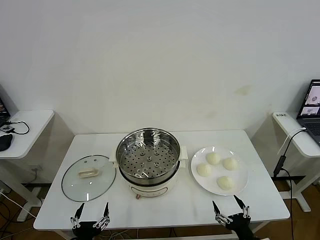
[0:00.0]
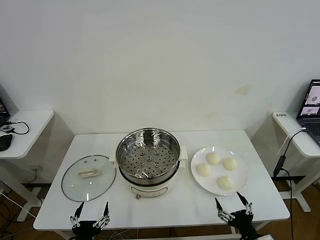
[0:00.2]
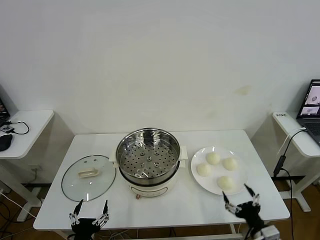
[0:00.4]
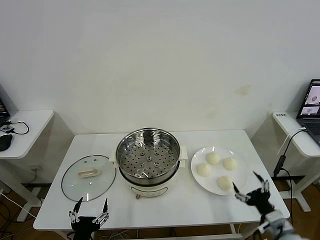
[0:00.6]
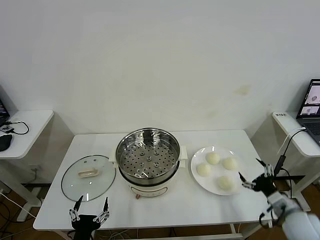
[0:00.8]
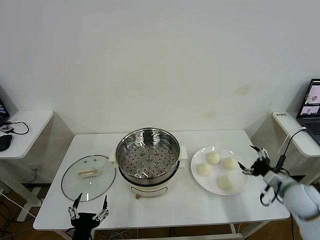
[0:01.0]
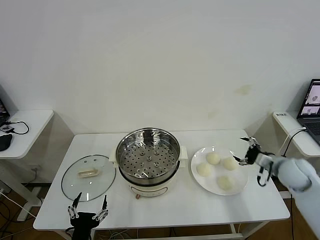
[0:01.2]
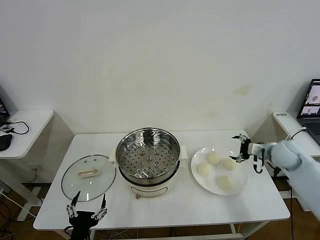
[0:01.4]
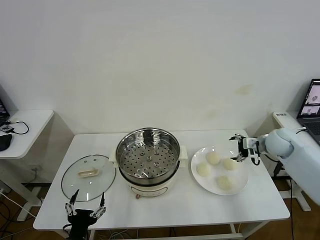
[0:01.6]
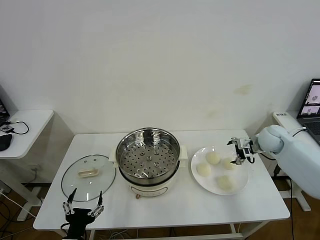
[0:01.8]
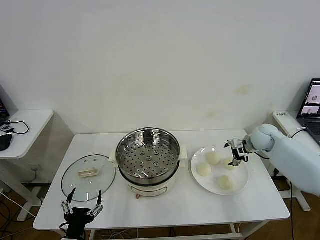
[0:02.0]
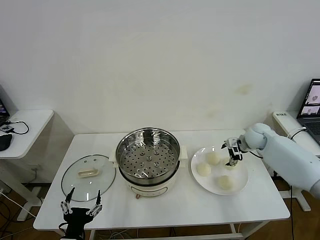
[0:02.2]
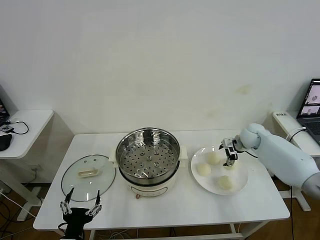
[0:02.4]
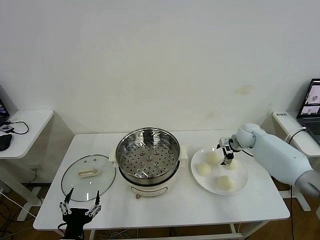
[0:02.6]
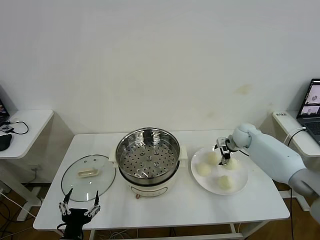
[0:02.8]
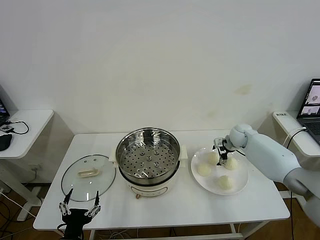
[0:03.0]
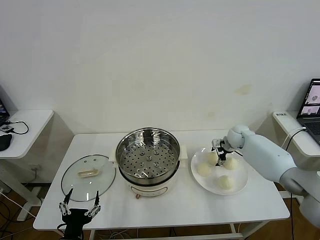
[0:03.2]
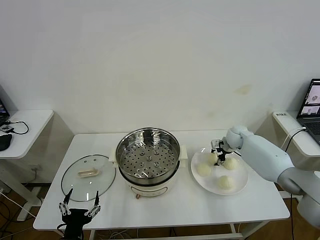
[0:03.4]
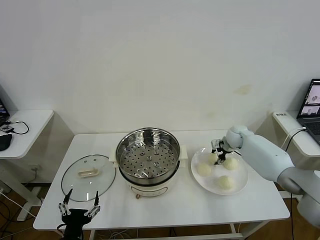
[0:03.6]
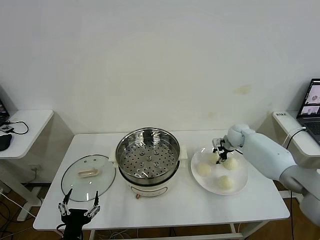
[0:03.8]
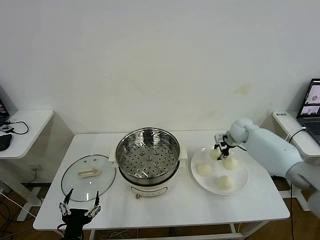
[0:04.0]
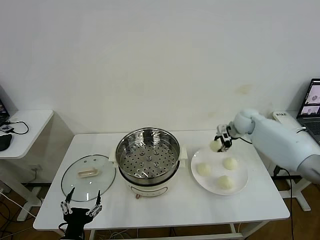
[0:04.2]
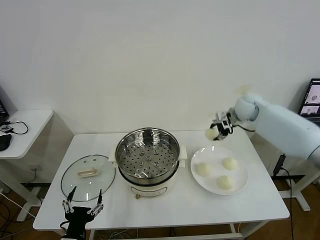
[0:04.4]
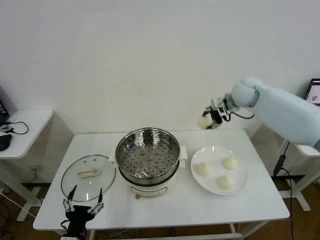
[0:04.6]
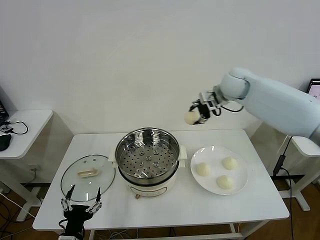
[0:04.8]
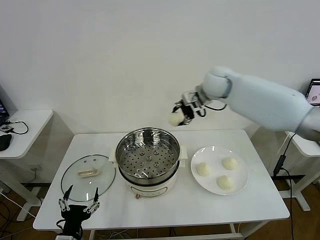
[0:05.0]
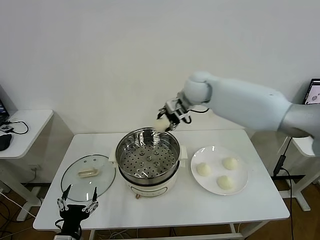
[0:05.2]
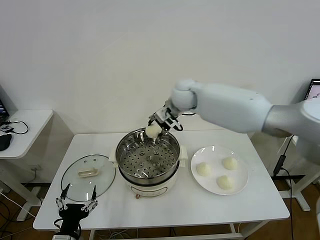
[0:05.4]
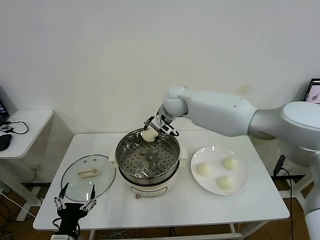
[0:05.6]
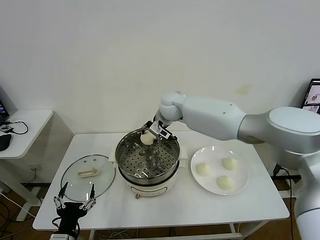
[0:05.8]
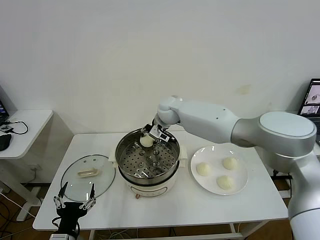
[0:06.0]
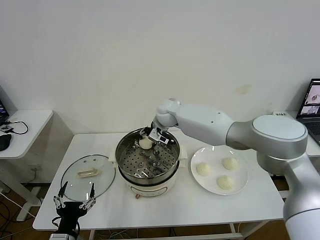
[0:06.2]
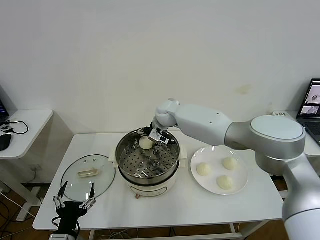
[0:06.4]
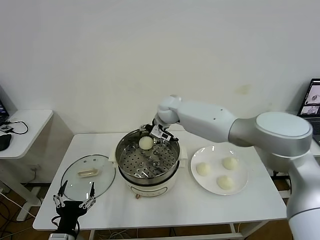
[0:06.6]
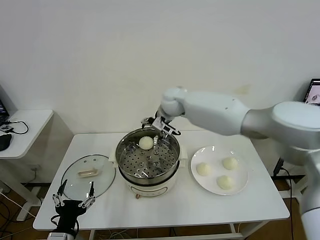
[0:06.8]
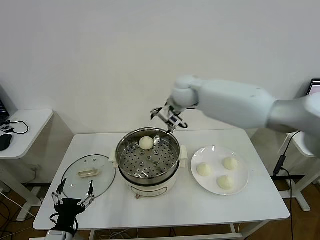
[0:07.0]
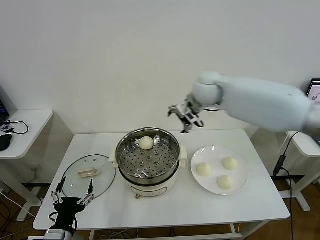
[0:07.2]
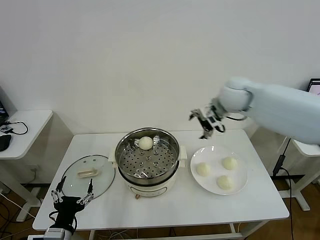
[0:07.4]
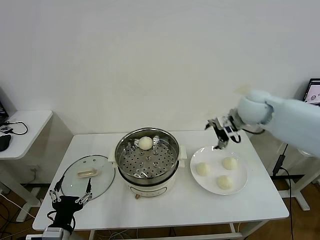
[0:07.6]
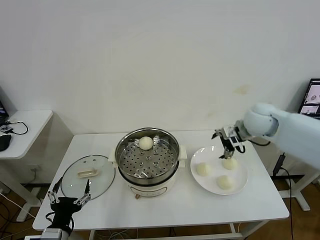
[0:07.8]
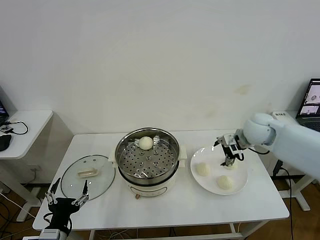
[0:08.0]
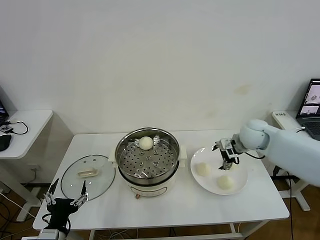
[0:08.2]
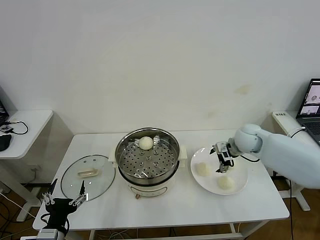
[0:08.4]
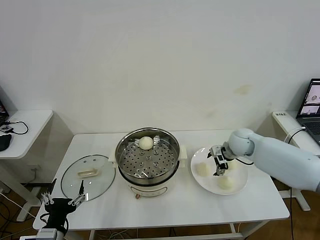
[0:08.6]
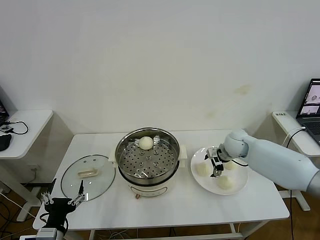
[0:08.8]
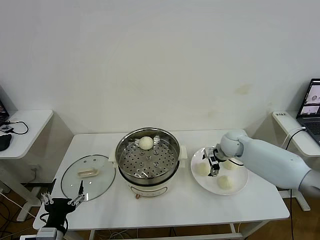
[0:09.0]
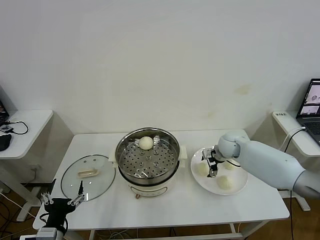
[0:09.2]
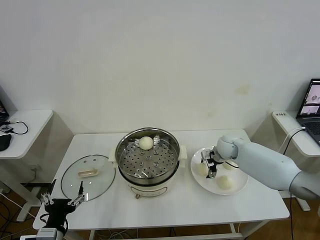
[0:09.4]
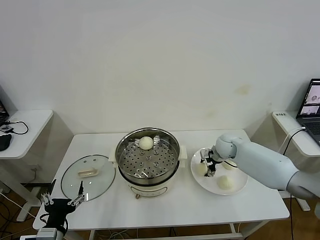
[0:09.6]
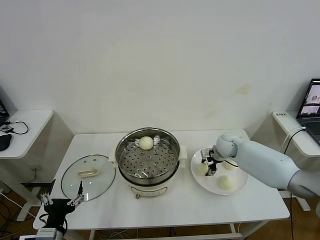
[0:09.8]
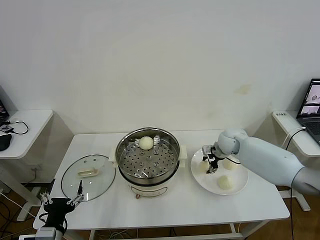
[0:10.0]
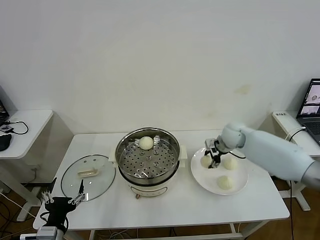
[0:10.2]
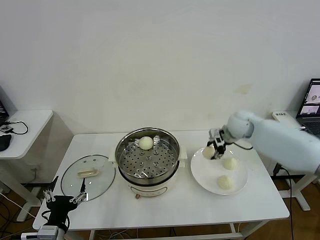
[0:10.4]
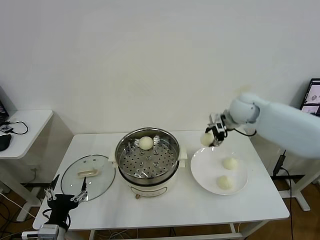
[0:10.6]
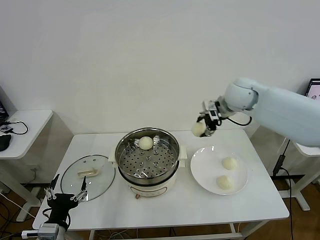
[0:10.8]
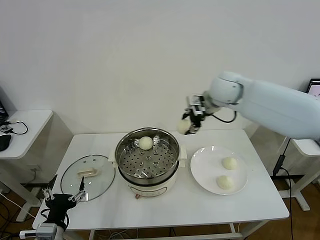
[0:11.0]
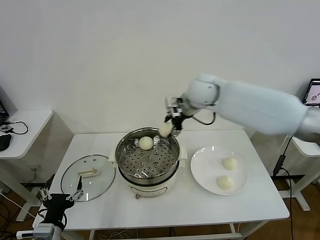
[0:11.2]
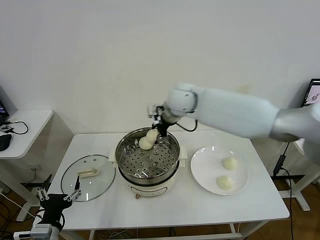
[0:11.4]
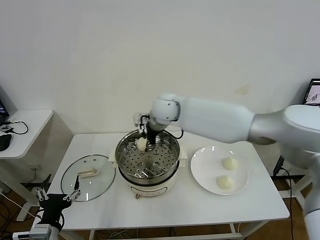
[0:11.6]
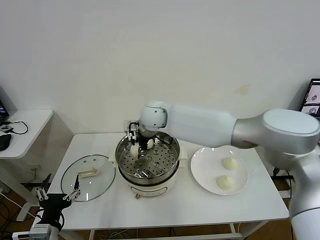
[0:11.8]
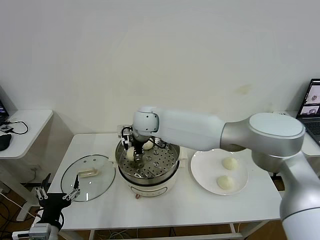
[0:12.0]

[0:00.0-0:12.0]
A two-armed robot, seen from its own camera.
Task of the whole recording: take steamed baozi put them in steamer then cover it.
Step, 0:00.0 to 0:03.8: Grasp the baozi in the plate with right gripper.
Step, 0:04.0 to 0:06.6: Place the baozi on the steamer with right gripper.
Step, 0:06.8 to 0:09.8: Grasp the baozi in the plate with right gripper.
0:01.6 to 0:03.0: The right gripper shifts approximately 15 cm forward, to the left and downward.
0:03.0 to 0:04.4: The right gripper travels upward by some 20 cm, and closes up.
0:04.4 to 0:06.0: The right gripper is displaced to the left by roughly 25 cm.
0:06.0 to 0:07.6: The right gripper is displaced to the right by some 25 cm, and opens up.
0:07.6 to 0:09.0: The right gripper heads downward, covering some 20 cm.
0:09.0 to 0:10.4: The right gripper heads upward, covering some 15 cm, and closes up.
0:10.4 to 0:12.0: The right gripper heads to the left, covering some 35 cm.

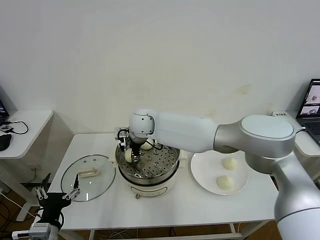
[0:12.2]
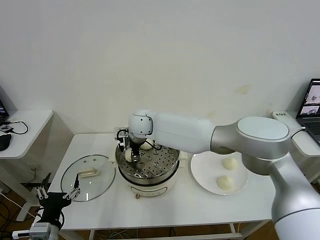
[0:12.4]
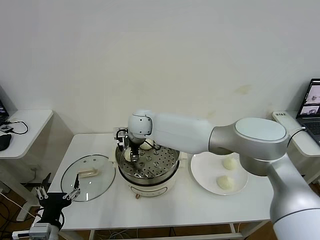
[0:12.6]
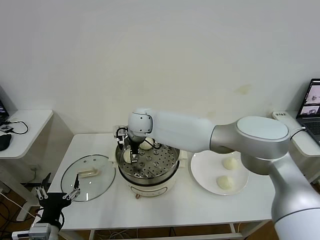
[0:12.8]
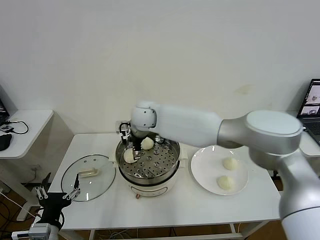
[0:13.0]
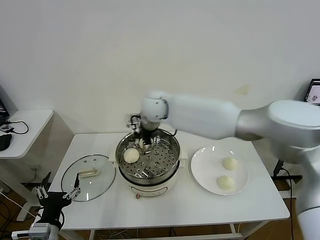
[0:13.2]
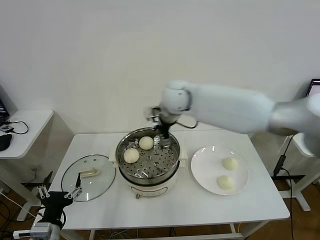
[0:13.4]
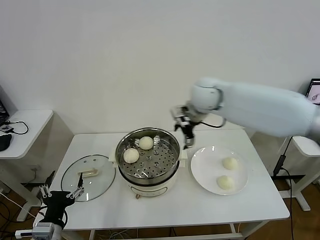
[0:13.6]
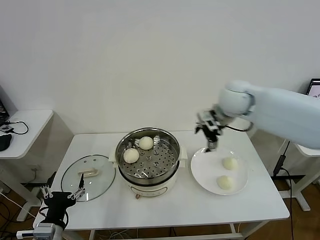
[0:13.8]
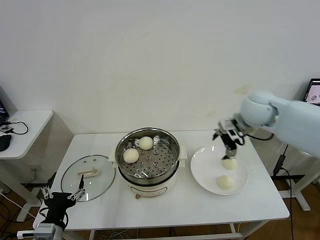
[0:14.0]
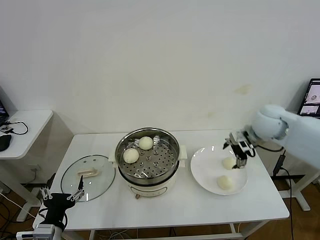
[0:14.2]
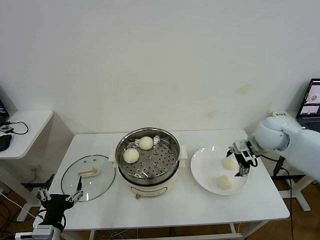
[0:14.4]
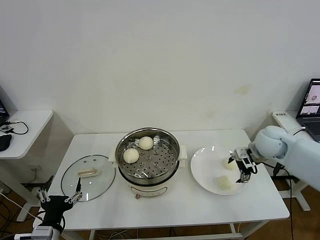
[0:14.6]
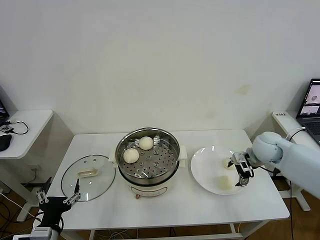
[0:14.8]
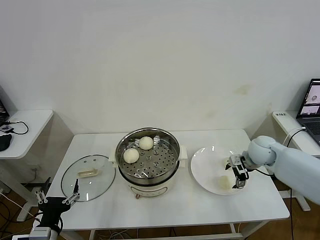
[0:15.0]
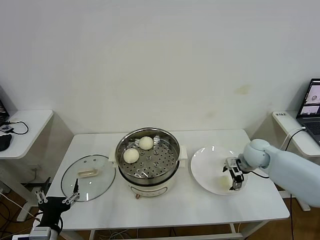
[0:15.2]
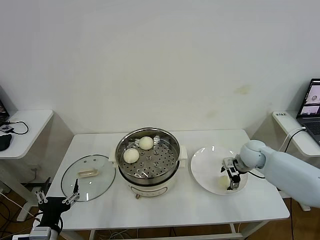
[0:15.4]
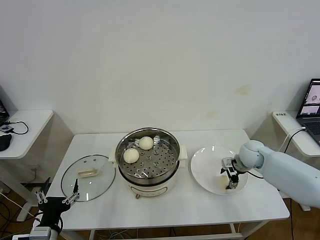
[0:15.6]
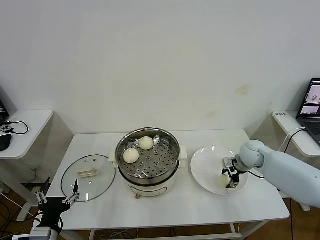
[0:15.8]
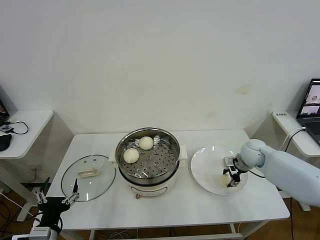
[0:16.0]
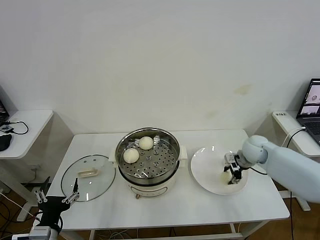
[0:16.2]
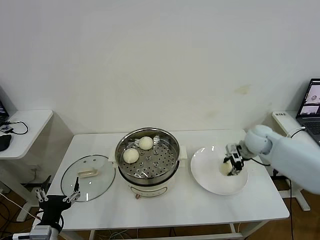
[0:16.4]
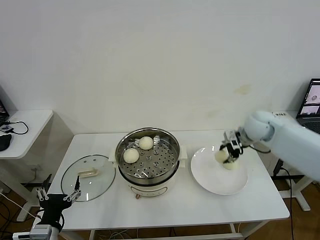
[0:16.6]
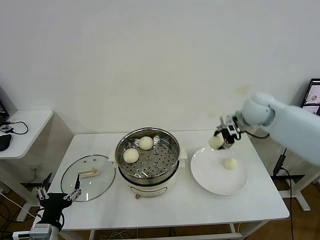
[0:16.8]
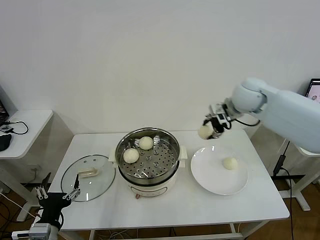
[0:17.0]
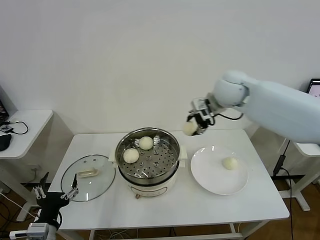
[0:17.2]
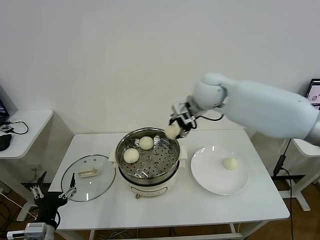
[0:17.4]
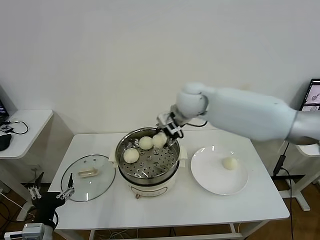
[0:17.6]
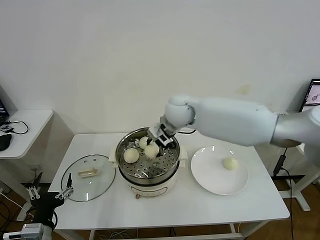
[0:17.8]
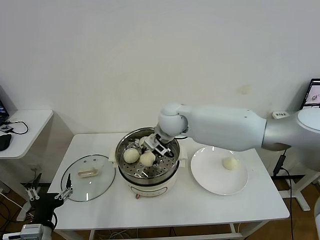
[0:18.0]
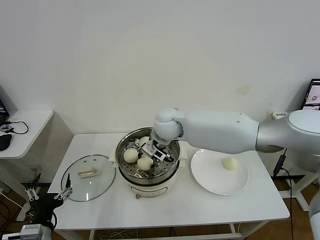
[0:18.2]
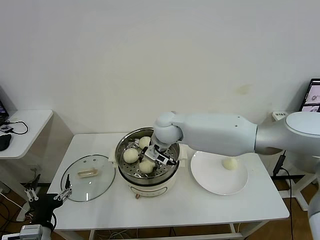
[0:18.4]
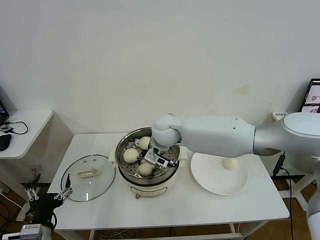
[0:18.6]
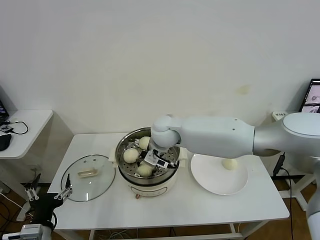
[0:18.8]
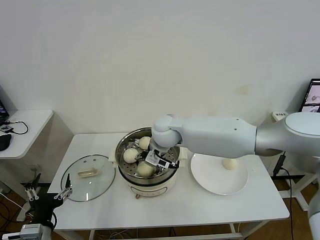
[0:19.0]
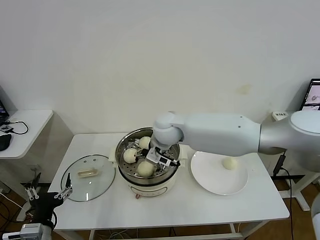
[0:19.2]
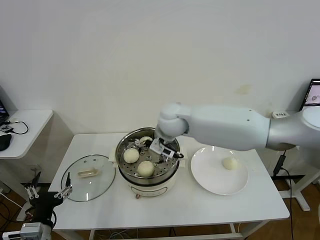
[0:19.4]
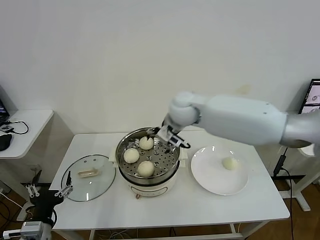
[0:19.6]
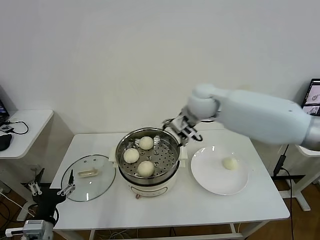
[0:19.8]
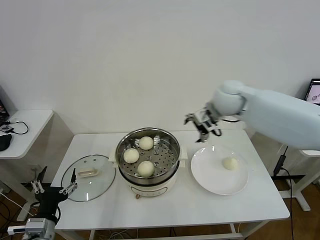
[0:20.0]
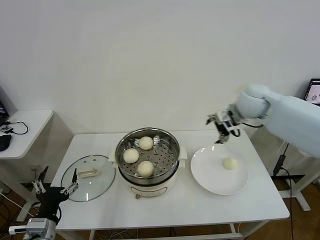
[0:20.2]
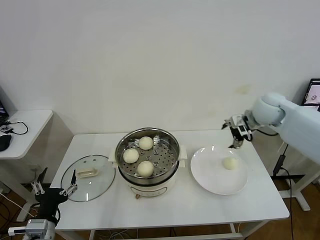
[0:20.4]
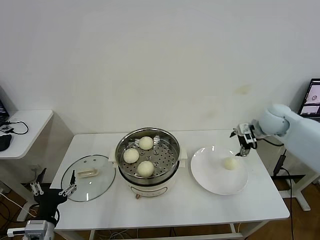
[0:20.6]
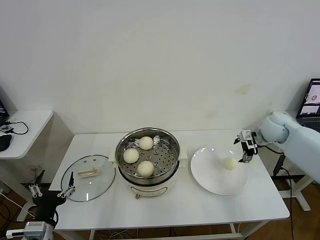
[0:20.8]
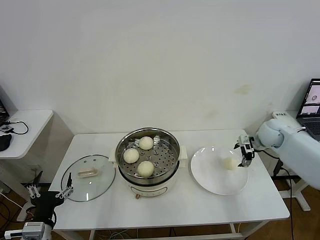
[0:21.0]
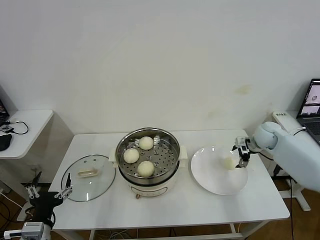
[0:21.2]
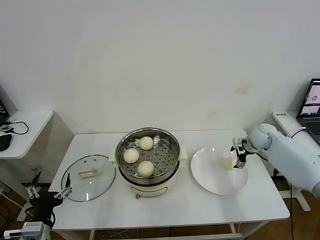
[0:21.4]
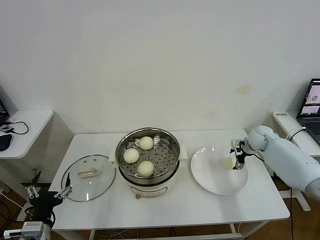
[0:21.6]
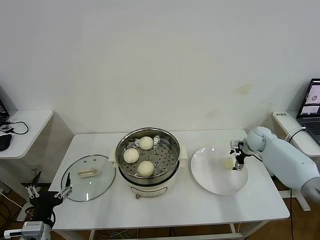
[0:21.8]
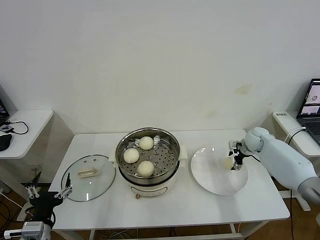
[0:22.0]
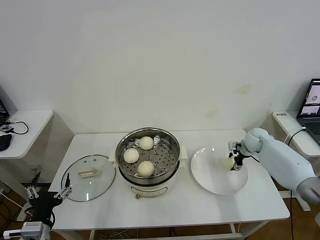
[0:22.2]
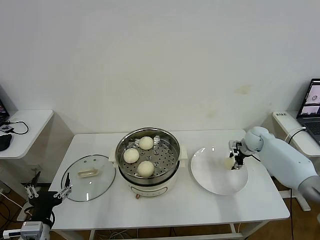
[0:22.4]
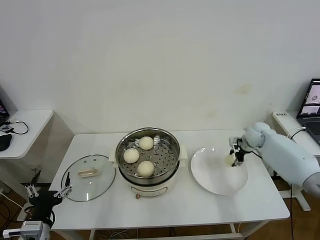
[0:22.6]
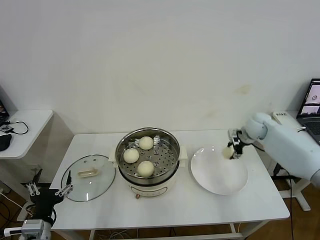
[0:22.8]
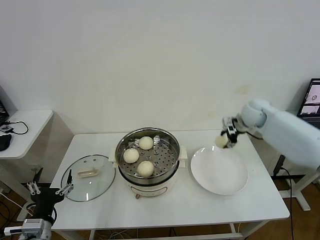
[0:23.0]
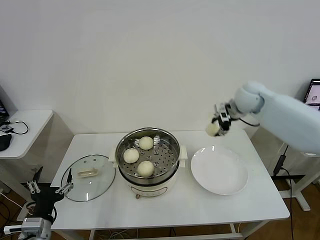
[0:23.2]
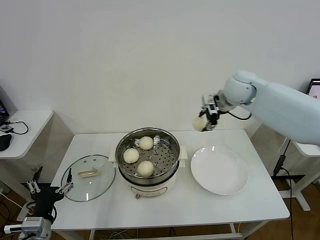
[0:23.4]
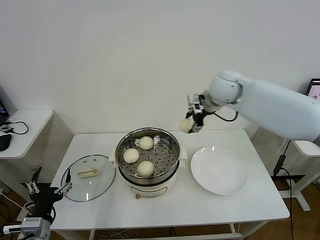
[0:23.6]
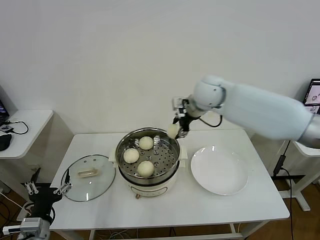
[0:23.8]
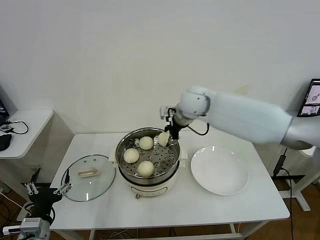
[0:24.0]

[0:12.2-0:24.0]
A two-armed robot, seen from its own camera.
Task of the whole recording: take steamed baozi put them in steamer then cover it.
Step, 0:13.0 to 0:16.0: Grasp the baozi in the plate with right gripper.
Step, 0:16.2 to 0:19.2: Place the baozi on the steamer with right gripper.
Step, 0:19.4 to 0:22.4: Grasp the baozi in the plate with right gripper.
0:12.2 to 0:13.6: The right gripper goes about 25 cm to the right and upward, and opens.
0:13.6 to 0:15.2: The right gripper is displaced downward and to the right by roughly 30 cm.
0:15.2 to 0:16.6: The right gripper is displaced upward by some 15 cm, and closes up.
0:16.6 to 0:18.2: The right gripper moves to the left, roughly 30 cm.
0:18.2 to 0:19.6: The right gripper shifts some 10 cm upward and to the right, and opens its fingers.
0:19.6 to 0:21.0: The right gripper shifts some 35 cm to the right and downward.
0:21.0 to 0:22.6: The right gripper ends up about 5 cm from where it was, and closes its fingers.
0:22.6 to 0:24.0: The right gripper goes some 35 cm to the left and upward.
